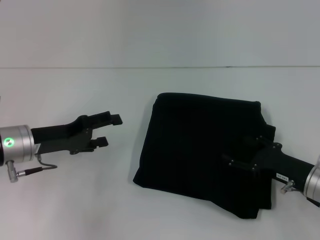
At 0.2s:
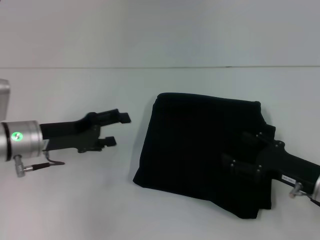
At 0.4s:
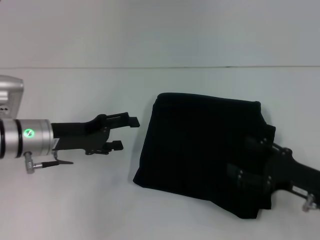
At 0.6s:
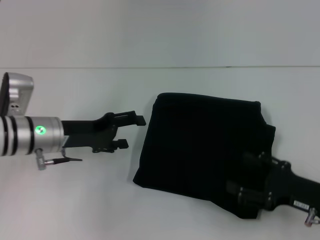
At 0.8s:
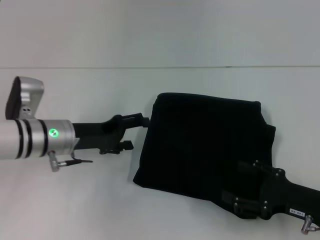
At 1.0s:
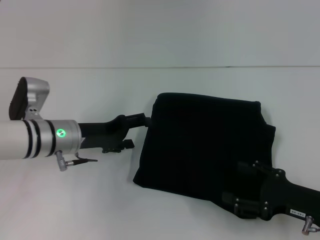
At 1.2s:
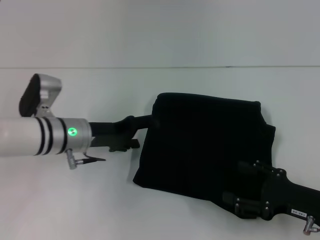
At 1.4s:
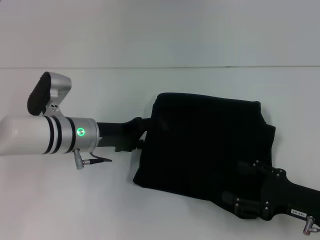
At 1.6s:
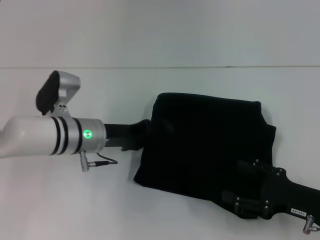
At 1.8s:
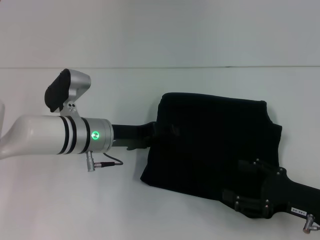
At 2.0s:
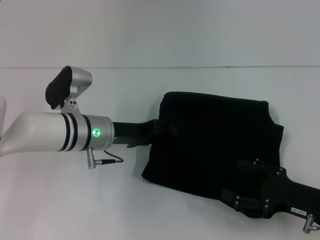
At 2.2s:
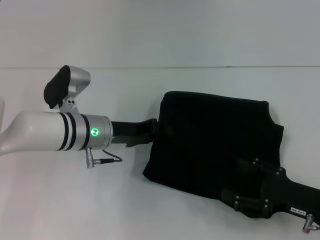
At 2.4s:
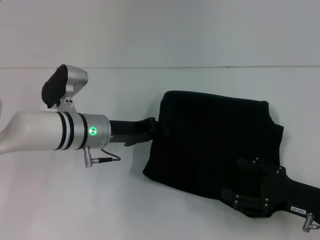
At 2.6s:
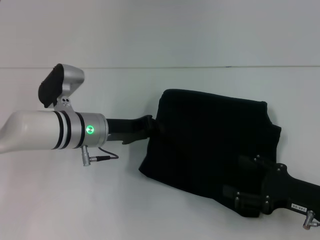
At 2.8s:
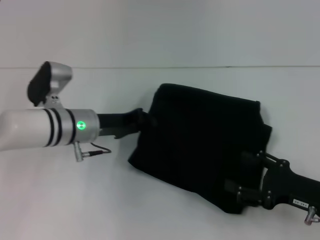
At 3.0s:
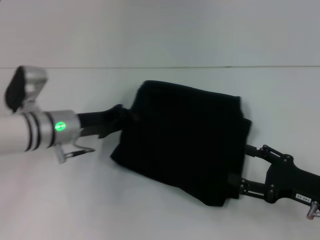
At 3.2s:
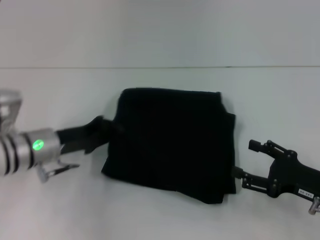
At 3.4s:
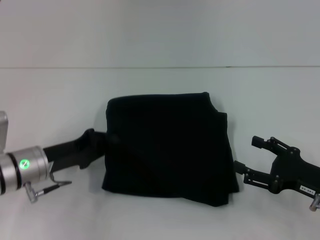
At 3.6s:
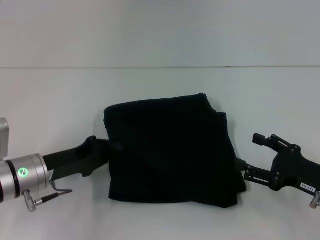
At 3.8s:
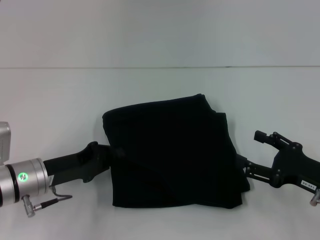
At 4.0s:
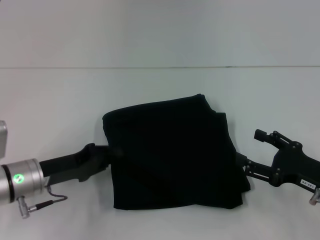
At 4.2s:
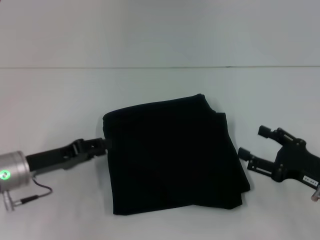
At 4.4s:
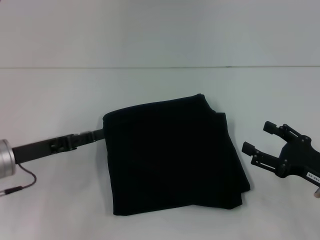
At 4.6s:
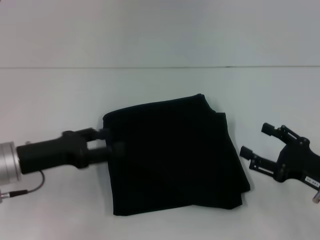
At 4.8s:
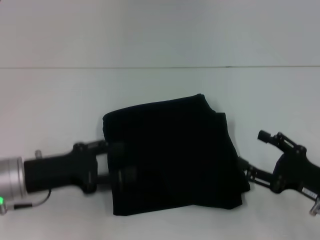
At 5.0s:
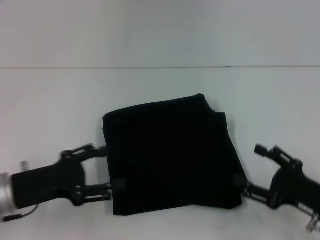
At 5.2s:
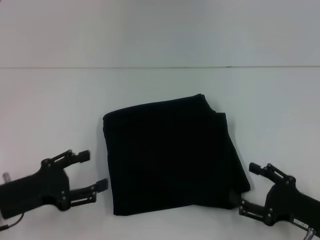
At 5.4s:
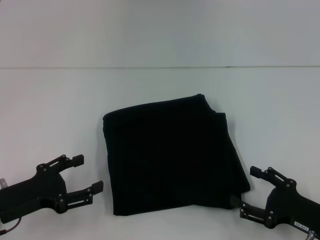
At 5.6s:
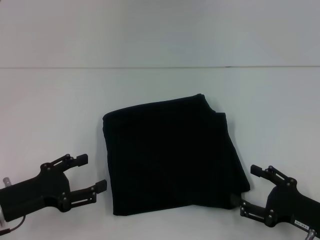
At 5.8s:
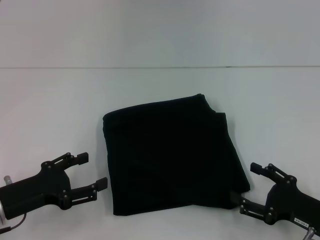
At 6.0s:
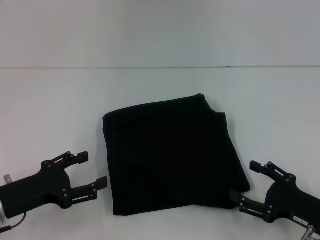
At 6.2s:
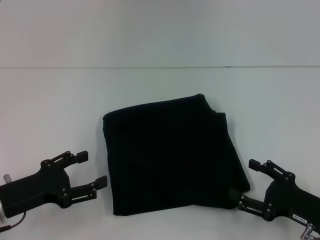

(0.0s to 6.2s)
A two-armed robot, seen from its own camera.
0.0s - 1.6s: The right gripper moves approximately 5 cm; the left gripper shifts some 10 cm to the right.
1.6s - 3.2s: The left gripper is displaced to the left by some 5 cm, and closes.
3.2s - 4.6s: The left gripper changes place by approximately 5 cm, and opens.
4.6s - 6.2s: The left gripper moves backward, some 5 cm.

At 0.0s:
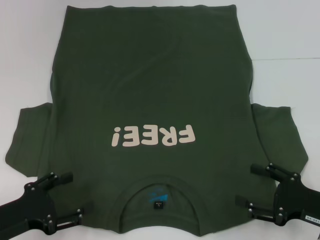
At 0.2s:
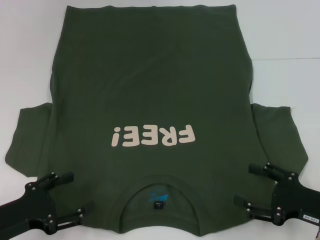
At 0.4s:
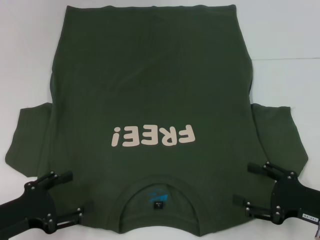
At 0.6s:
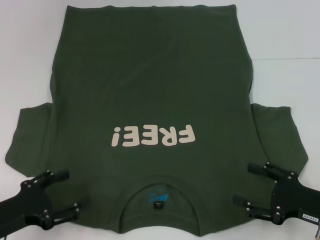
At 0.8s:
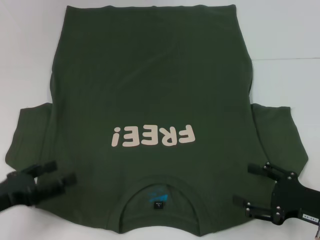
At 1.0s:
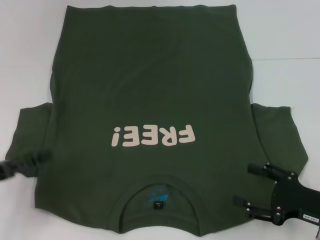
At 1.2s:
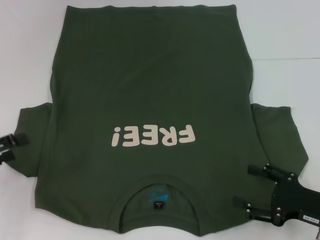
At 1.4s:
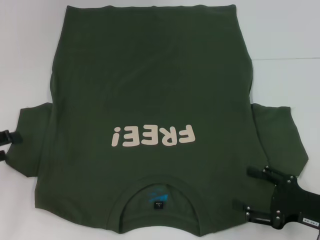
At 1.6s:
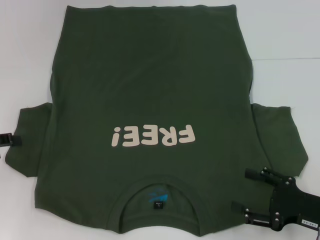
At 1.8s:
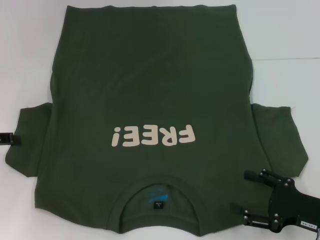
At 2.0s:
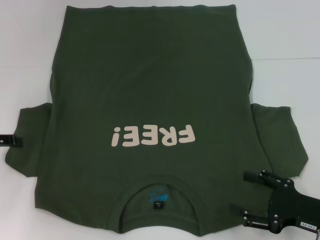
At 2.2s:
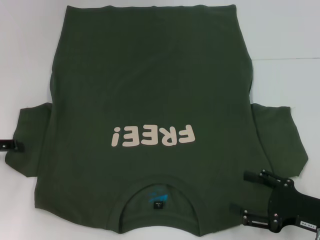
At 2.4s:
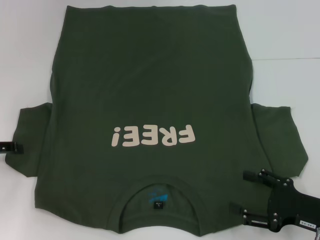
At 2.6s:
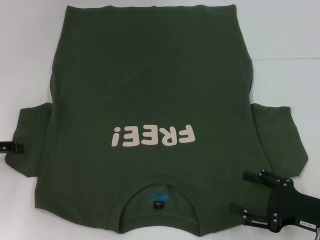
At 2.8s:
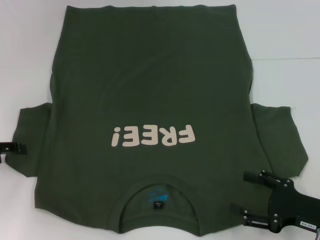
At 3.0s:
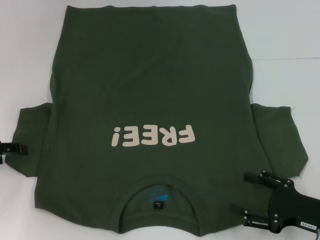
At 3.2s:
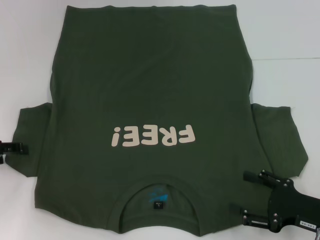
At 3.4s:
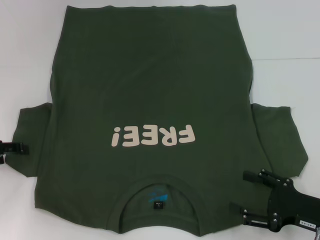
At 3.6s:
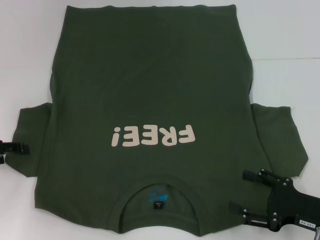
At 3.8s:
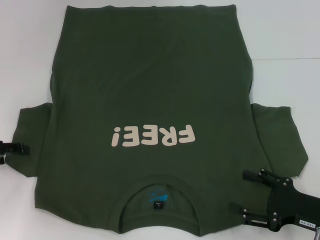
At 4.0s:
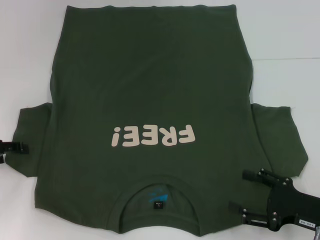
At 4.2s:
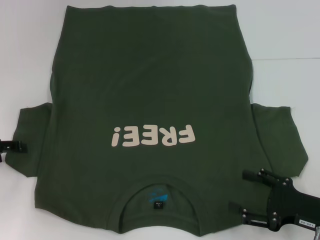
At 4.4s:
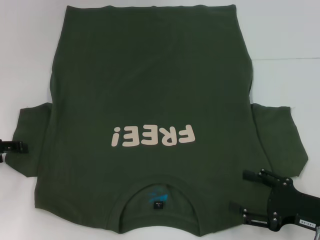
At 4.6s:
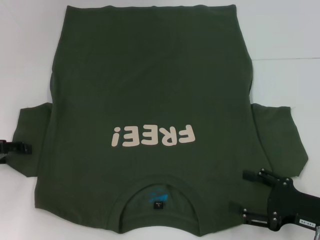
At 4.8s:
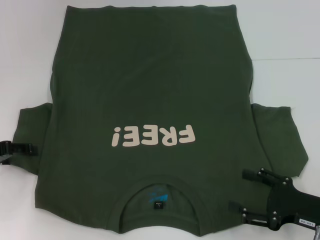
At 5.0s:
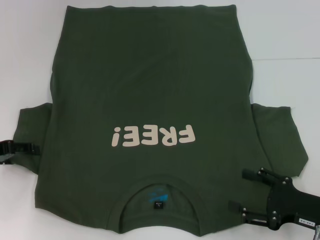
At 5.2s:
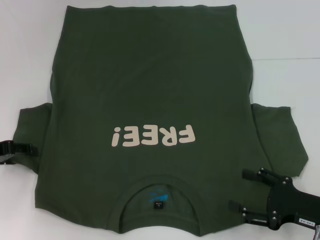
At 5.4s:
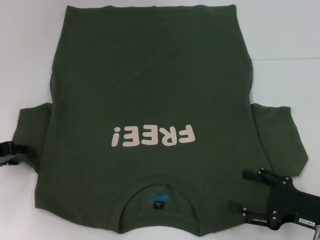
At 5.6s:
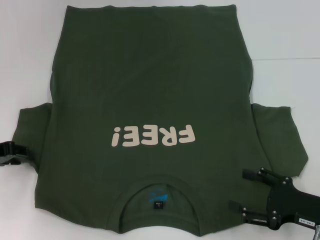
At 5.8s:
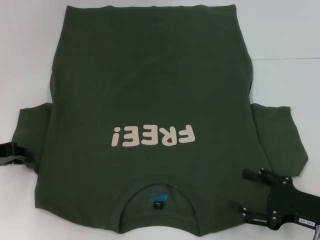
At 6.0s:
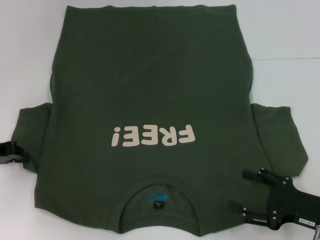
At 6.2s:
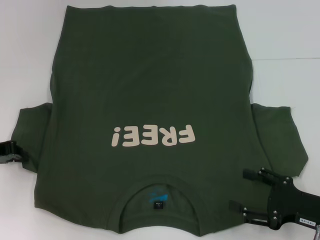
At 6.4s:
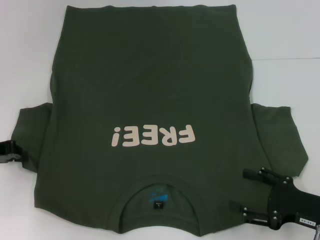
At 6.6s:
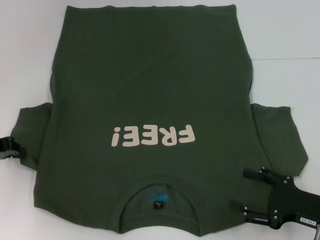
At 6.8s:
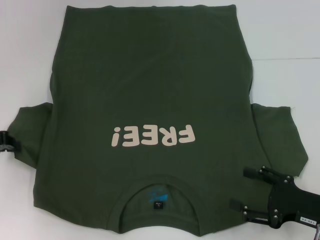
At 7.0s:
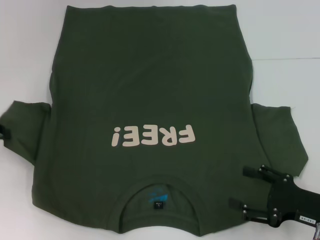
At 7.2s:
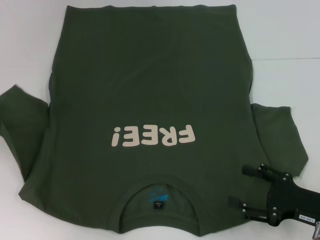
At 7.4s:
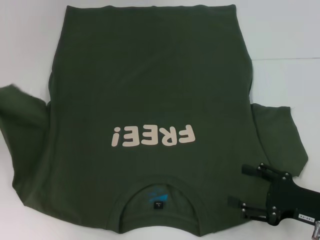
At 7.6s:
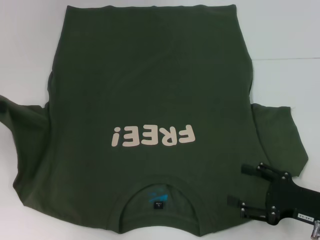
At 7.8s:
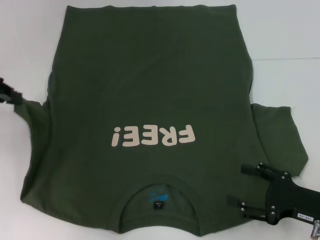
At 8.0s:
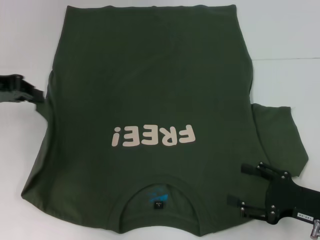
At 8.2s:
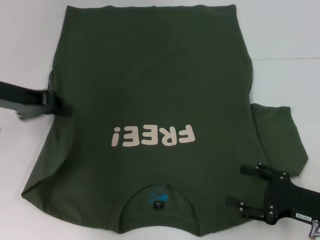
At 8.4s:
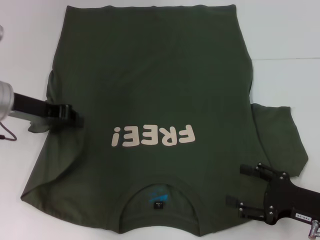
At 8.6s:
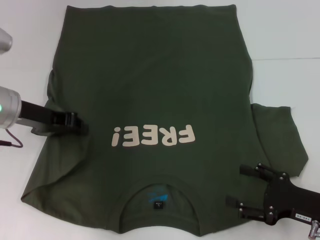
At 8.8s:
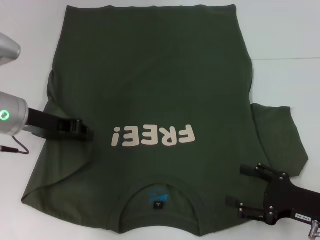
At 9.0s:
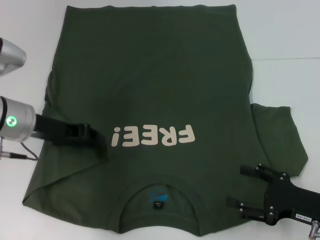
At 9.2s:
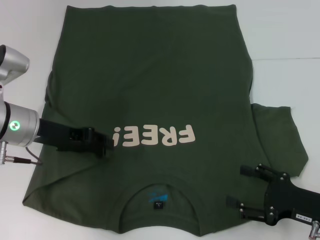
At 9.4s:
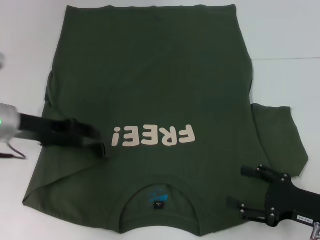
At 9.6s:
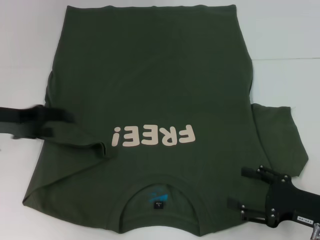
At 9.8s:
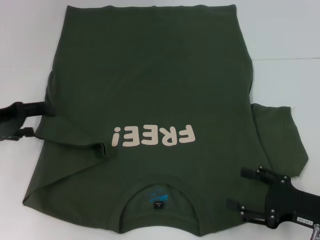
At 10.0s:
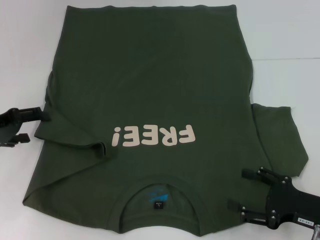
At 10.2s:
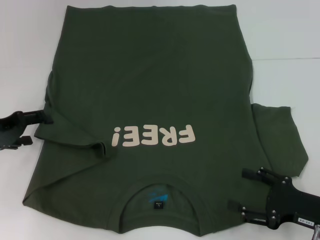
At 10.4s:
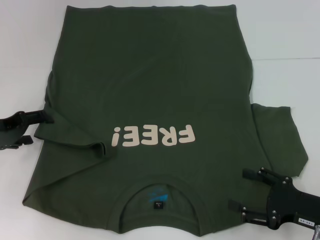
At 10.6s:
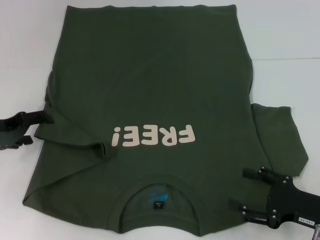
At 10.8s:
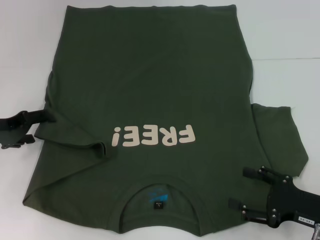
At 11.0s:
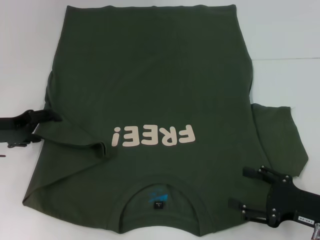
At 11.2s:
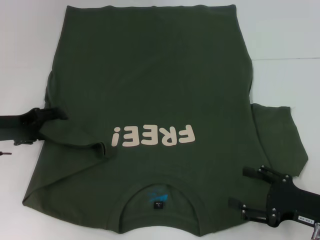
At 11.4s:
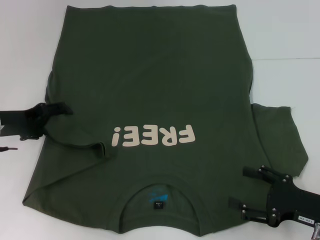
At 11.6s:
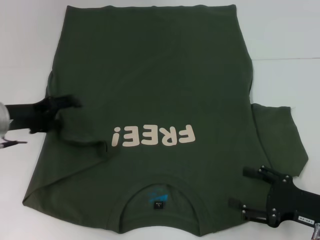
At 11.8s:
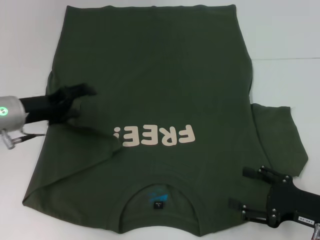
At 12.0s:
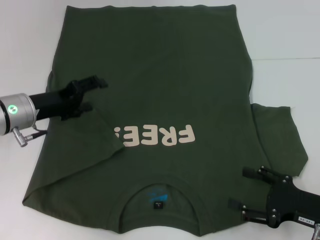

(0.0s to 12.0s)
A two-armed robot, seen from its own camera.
0.0s - 1.6s: The left gripper moves forward, to the left and upward, approximately 15 cm.
1.6s - 3.0s: There are only small adjustments of the grippers.
3.0s - 4.4s: The two grippers keep their place.
4.4s - 6.0s: The left gripper closes its fingers.
6.0s - 7.6s: The left gripper shifts approximately 10 cm upward.
7.6s - 9.0s: The left gripper is displaced to the right and downward by approximately 15 cm.
9.0s - 10.4s: The left gripper goes roughly 10 cm to the left, and opens up.
10.4s - 12.0s: The left gripper is displaced to the right by some 10 cm.

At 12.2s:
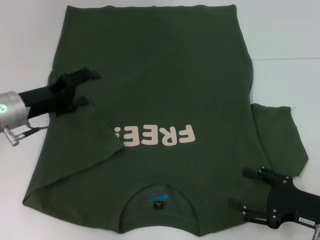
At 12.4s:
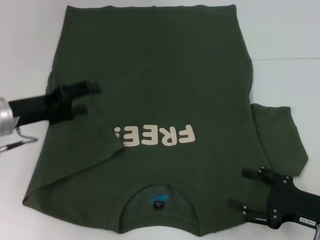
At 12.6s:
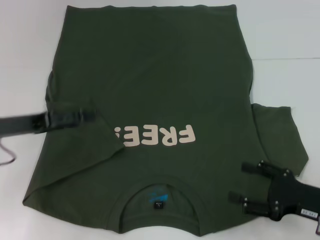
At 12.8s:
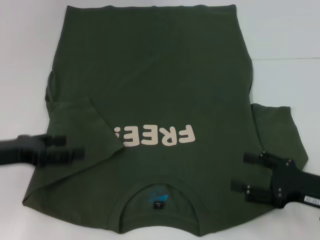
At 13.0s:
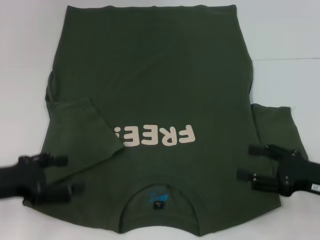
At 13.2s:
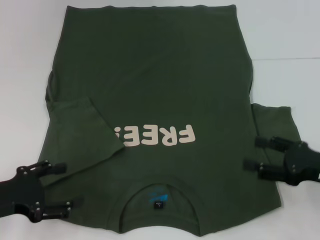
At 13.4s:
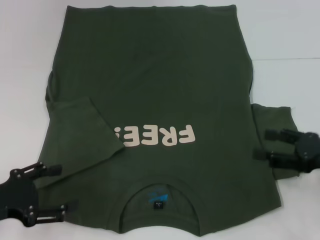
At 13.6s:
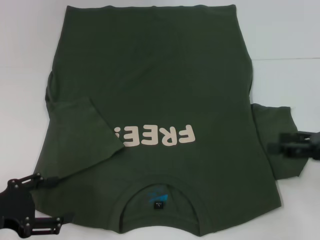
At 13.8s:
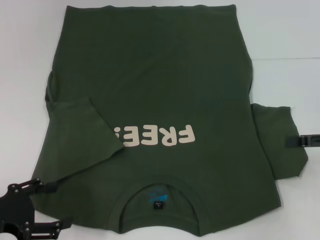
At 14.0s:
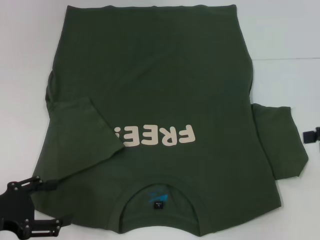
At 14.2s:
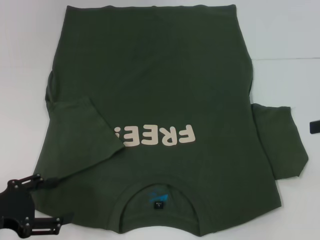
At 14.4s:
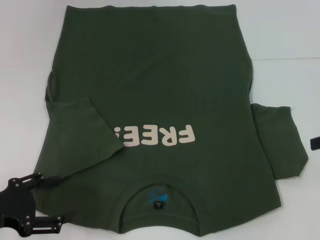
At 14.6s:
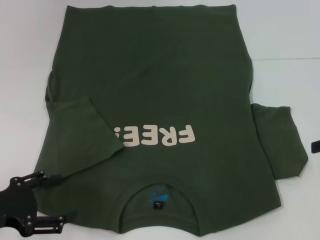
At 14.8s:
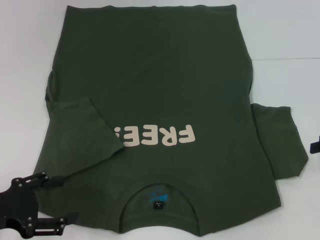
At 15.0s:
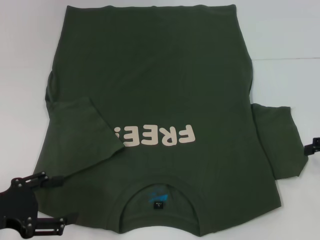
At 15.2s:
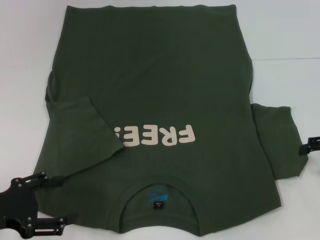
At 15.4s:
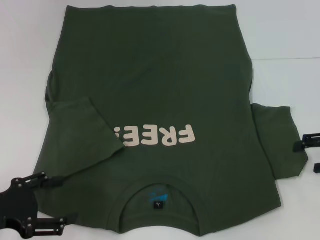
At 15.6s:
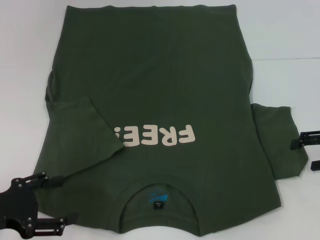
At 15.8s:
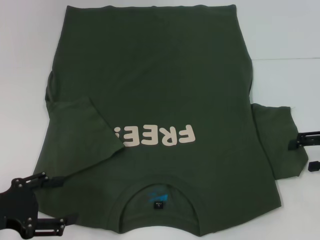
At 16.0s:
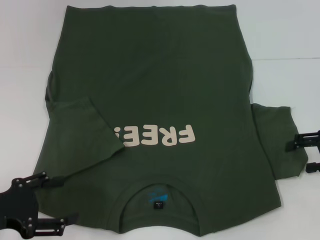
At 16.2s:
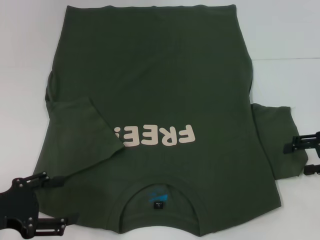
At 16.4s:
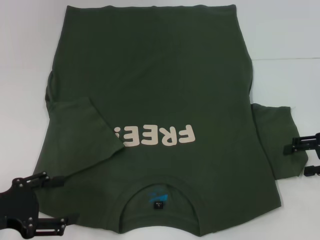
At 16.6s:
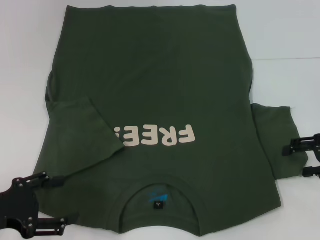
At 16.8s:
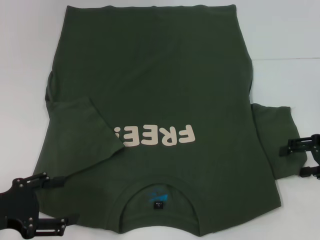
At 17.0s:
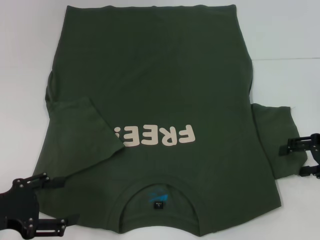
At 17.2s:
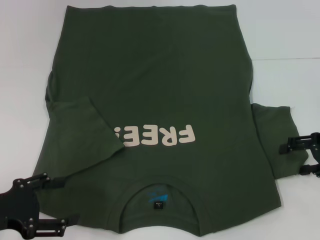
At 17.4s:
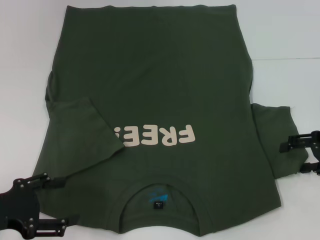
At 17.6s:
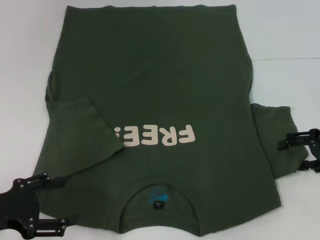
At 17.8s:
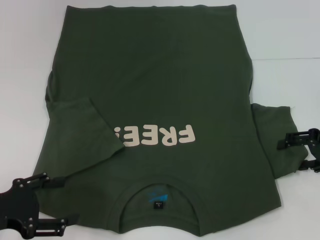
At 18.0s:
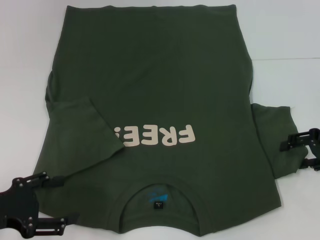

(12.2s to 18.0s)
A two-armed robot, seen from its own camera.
12.2s - 13.6s: The left gripper moves backward, some 15 cm. The right gripper travels upward, forward and to the right by roughly 15 cm.
13.6s - 15.0s: The right gripper shifts by some 5 cm.
15.0s - 16.6s: There are only small adjustments of the grippers.
16.6s - 18.0s: The two grippers keep their place.
